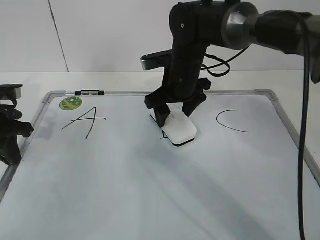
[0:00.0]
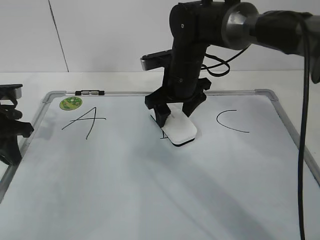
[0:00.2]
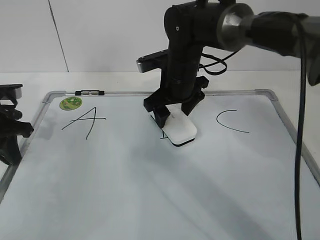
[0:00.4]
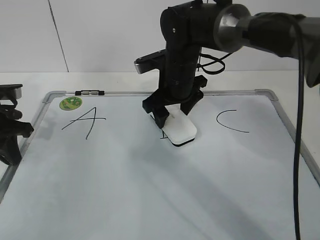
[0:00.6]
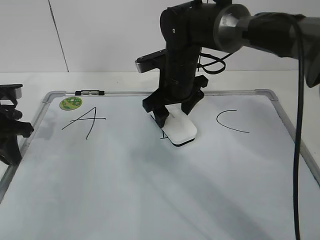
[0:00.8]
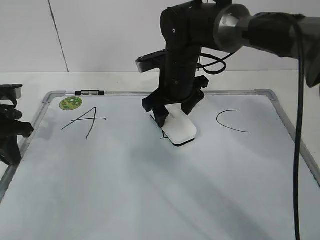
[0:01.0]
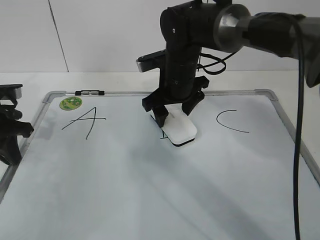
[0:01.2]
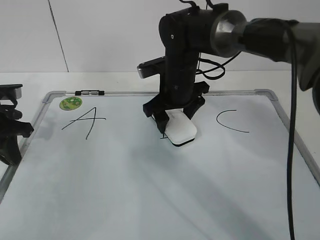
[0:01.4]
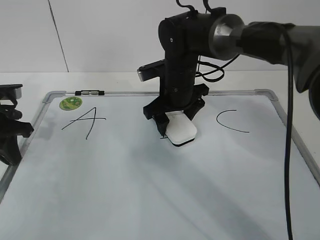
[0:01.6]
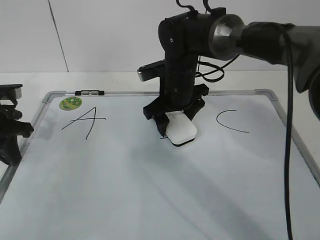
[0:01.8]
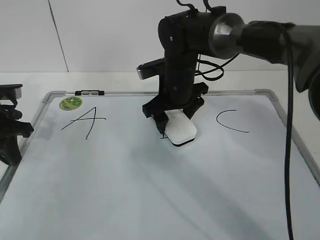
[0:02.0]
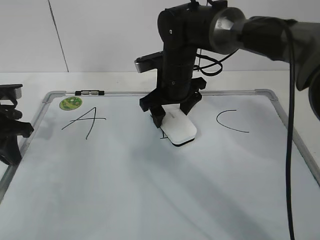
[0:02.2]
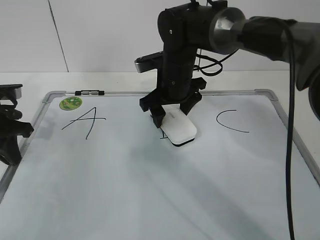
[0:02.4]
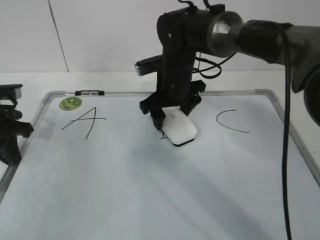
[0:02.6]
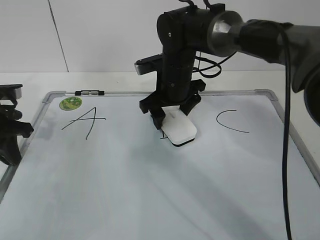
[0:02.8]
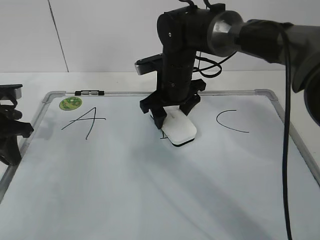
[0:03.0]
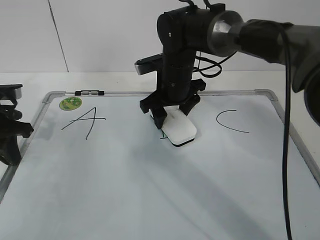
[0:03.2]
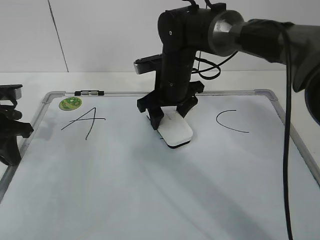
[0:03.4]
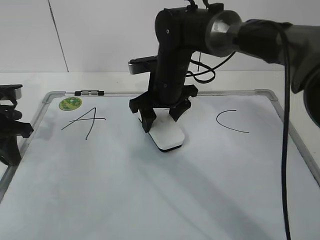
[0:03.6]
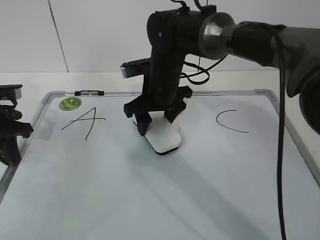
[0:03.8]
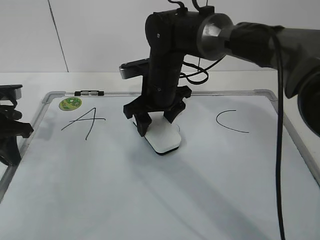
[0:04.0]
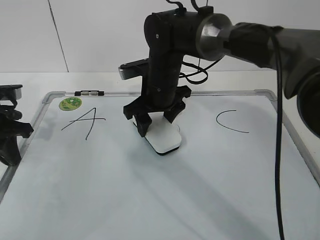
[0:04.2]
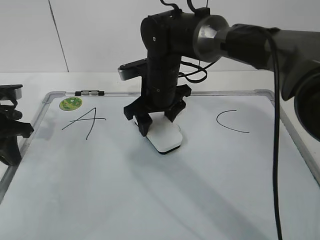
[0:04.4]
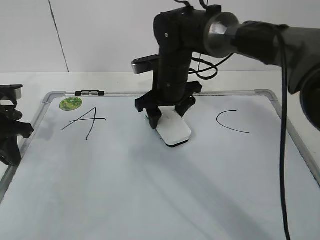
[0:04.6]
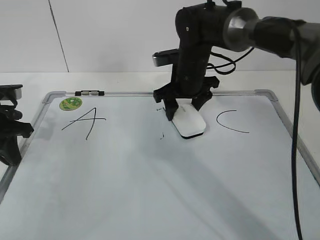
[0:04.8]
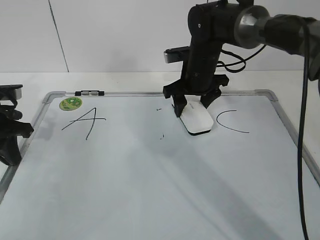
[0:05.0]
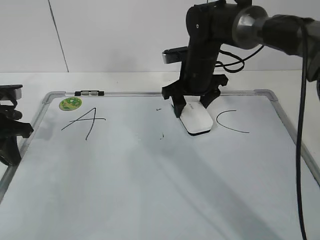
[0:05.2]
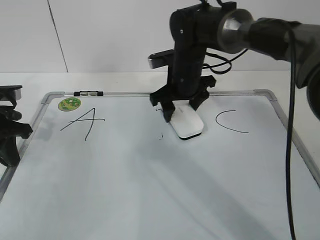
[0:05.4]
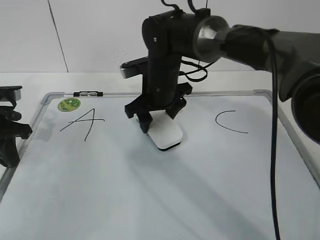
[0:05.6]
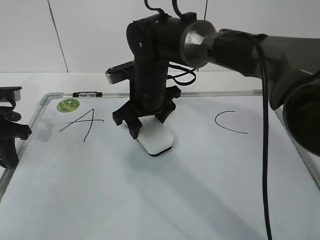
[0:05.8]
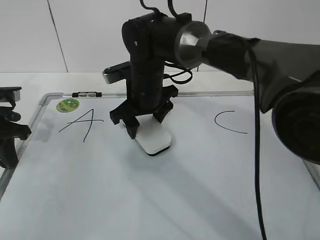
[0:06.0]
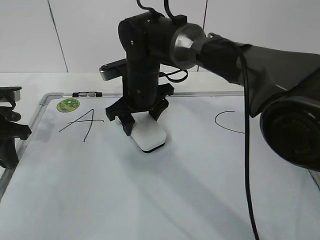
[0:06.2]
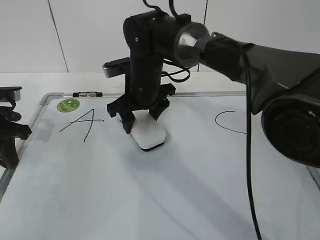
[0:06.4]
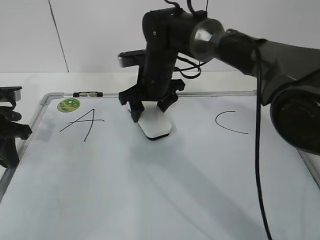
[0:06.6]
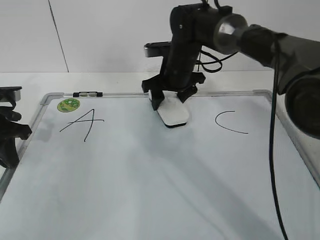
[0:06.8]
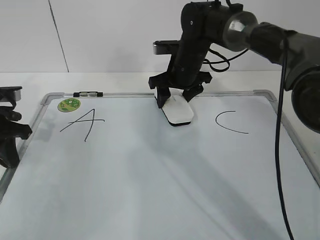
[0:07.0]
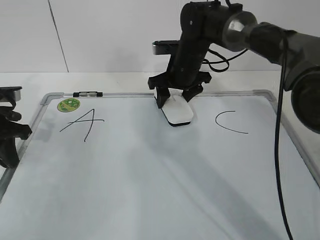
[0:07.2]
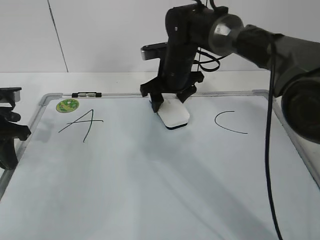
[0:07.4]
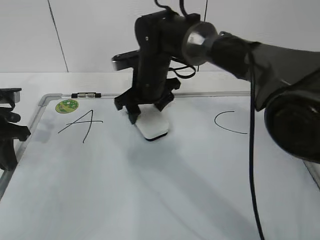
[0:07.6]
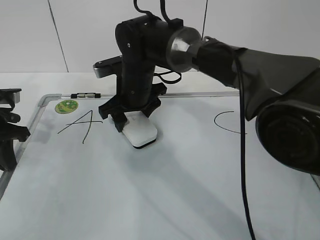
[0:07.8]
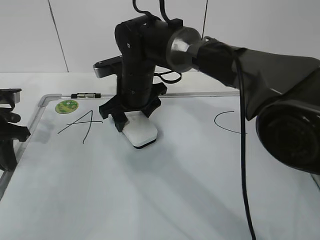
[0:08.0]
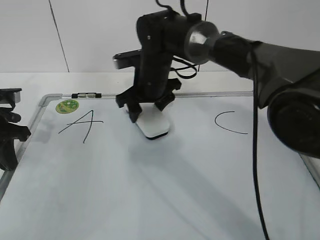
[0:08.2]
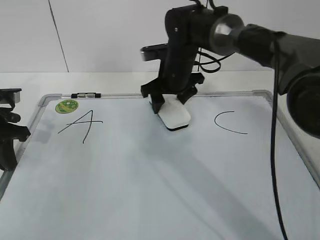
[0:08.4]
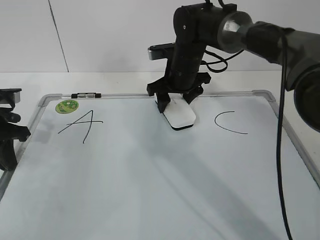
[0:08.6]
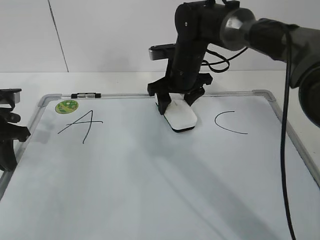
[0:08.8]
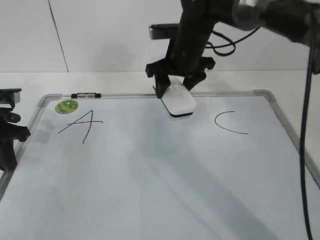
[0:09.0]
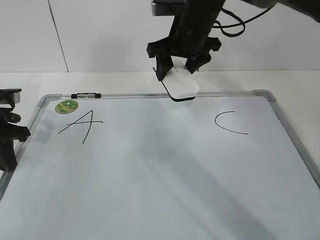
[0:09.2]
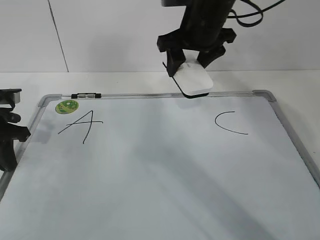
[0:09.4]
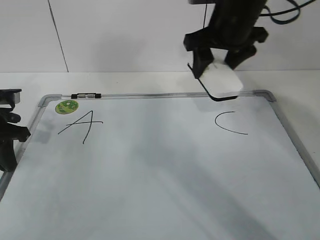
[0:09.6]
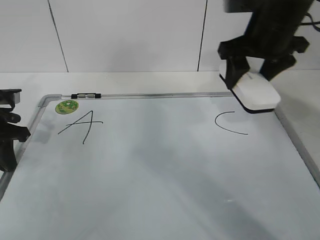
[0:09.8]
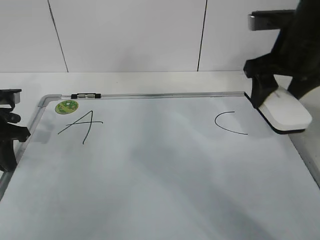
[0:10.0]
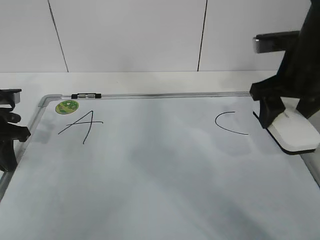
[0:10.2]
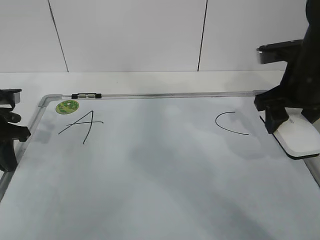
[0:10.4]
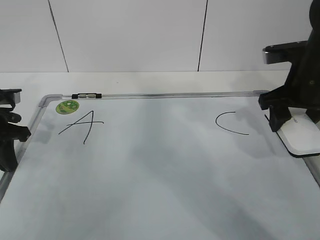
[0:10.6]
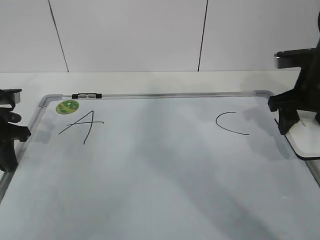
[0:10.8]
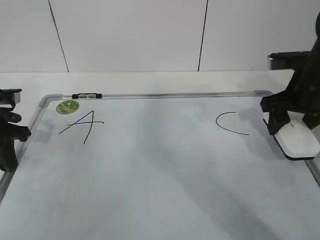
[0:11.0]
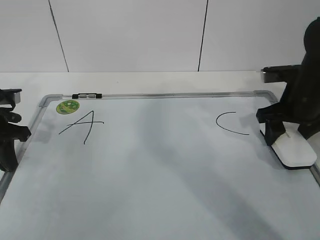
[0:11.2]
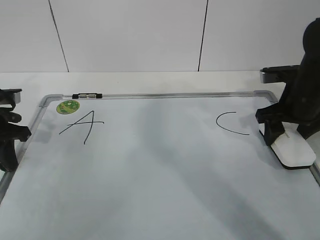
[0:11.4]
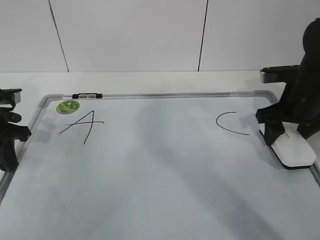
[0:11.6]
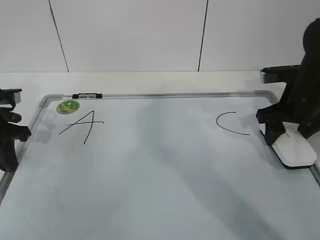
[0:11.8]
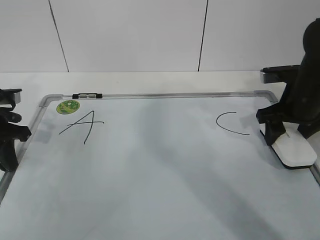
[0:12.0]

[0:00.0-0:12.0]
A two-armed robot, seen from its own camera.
Task of the whole recording: pick up the eraser on the blackboard and erase the letter "B".
Step, 0:00.0 to 0:08.8: Erase the letter B use the eraser with the right gripper.
0:00.0 to 0:01.6: The grippers stay close to where they were, moving slightly.
0:01.6 to 0:03.0: The right gripper closes up.
0:03.0 to 0:04.4: The grippers stay close to where they were, moving slightly.
0:04.4 to 0:06.0: The right gripper travels to the right and back again, some 10 cm each way.
0:06.0 to 0:07.6: The right gripper reaches roughly 10 cm to the right, then returns.
0:07.6 to 0:09.0: The right gripper moves to the right and upward, about 10 cm.
0:09.0 to 0:10.4: The right gripper heads to the right and backward, covering about 20 cm.
0:10.4 to 0:12.0: The right gripper goes some 5 cm downward.

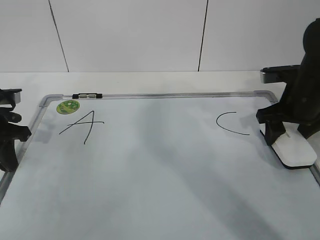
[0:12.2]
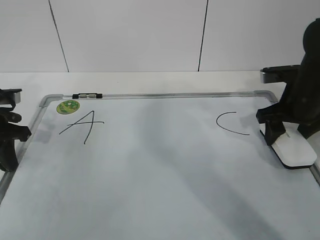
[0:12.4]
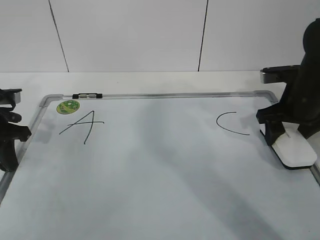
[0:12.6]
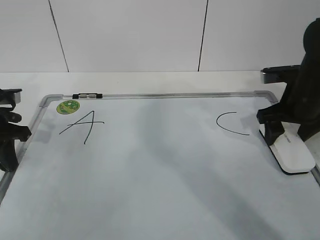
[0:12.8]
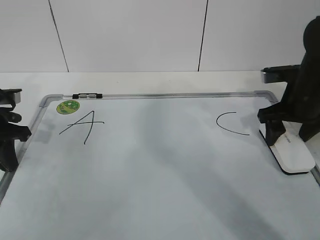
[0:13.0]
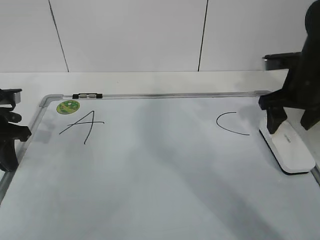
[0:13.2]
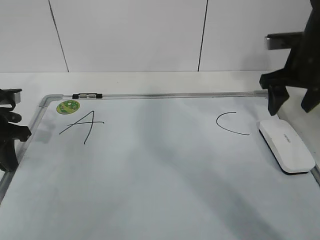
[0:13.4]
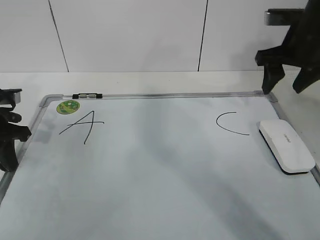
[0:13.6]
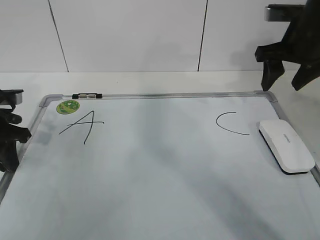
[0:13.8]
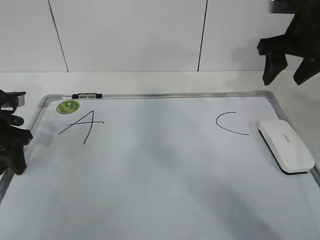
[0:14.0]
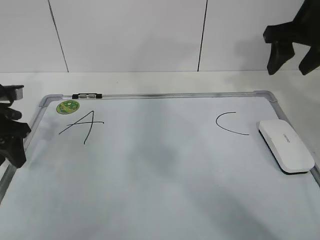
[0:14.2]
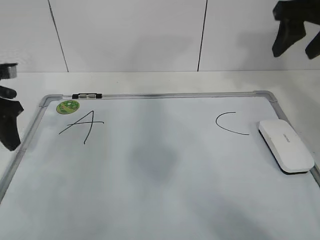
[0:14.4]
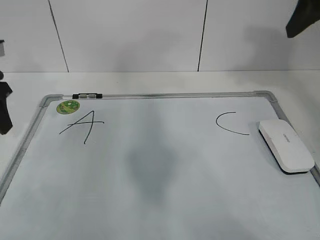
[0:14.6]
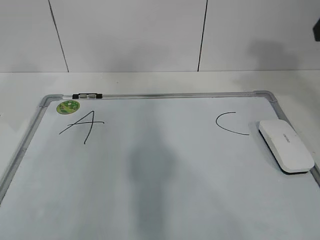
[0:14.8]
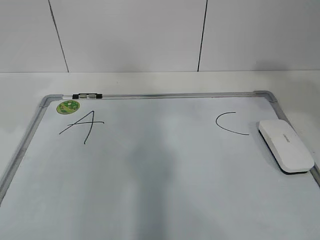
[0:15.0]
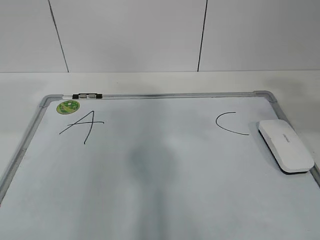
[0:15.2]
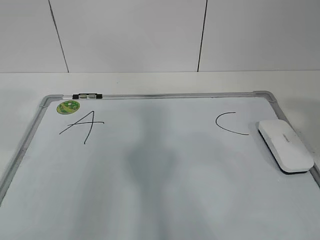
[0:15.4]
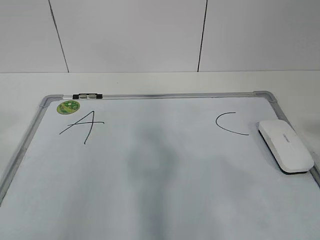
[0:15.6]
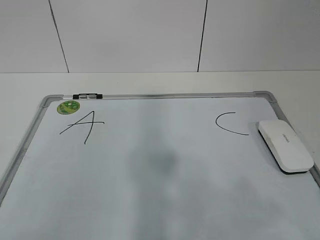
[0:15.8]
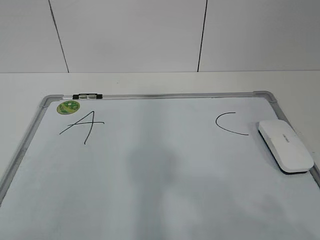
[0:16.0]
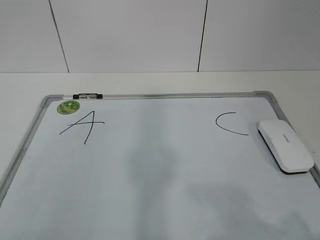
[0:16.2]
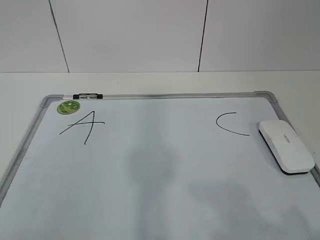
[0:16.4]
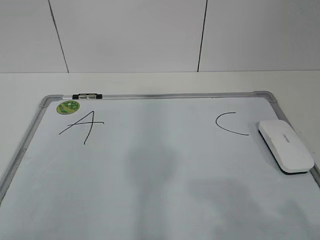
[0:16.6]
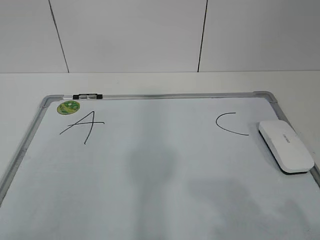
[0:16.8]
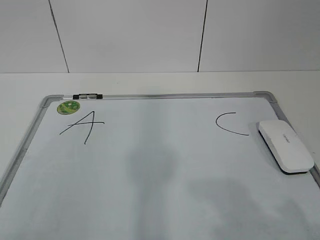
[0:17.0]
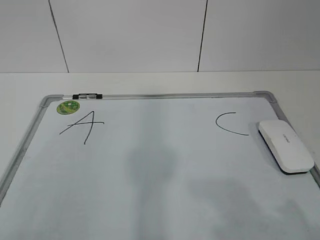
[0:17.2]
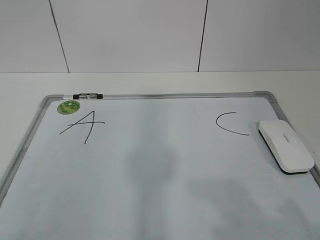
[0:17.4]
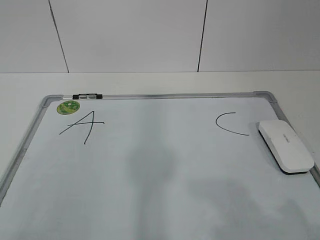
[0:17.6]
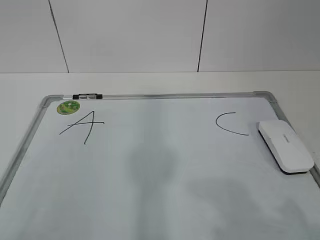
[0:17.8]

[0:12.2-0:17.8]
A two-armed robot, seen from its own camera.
Task of the whole recording: pick up the eraser on the blackboard and erase the letter "B".
0:12.2 to 0:13.6: The right gripper shifts roughly 10 cm upward, and opens, then closes once more.
0:13.6 to 0:15.0: The left gripper shifts approximately 20 cm upward and backward, and opens its fingers, while the right gripper travels backward and upward by roughly 25 cm.
0:15.0 to 0:16.4: The right gripper heads backward and downward, covering some 25 cm. Meanwhile the left gripper goes roughly 25 cm backward.
0:16.4 to 0:17.8: Neither gripper changes place.

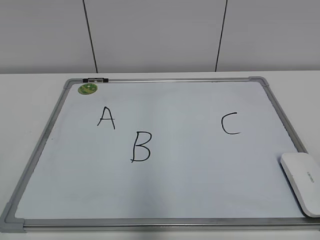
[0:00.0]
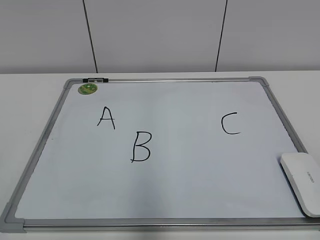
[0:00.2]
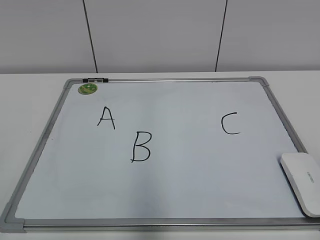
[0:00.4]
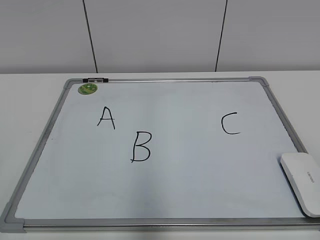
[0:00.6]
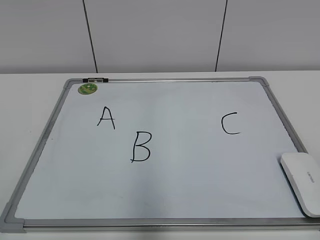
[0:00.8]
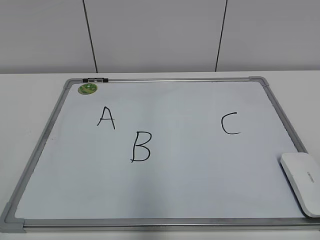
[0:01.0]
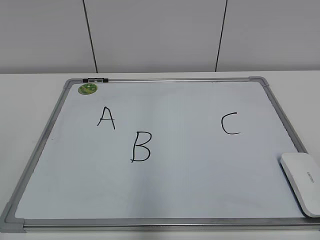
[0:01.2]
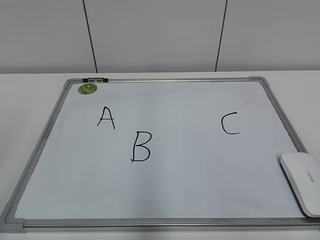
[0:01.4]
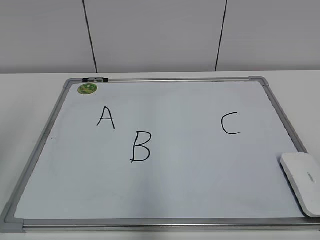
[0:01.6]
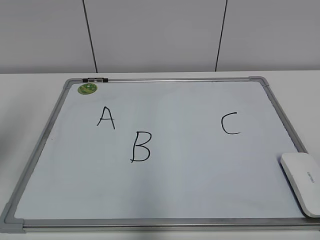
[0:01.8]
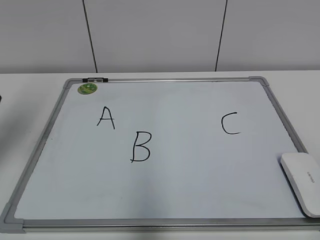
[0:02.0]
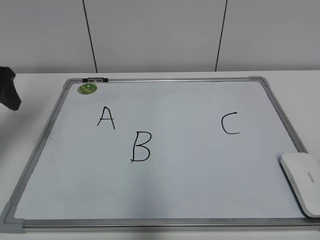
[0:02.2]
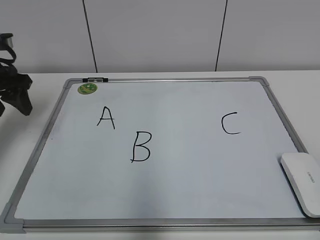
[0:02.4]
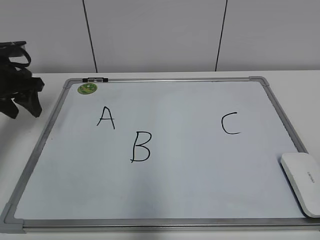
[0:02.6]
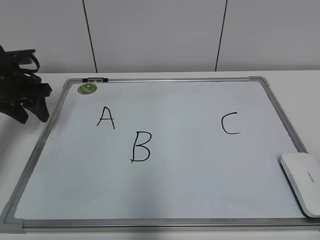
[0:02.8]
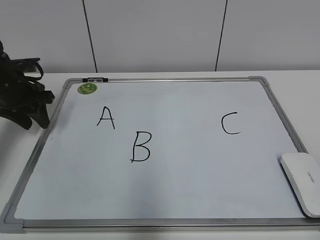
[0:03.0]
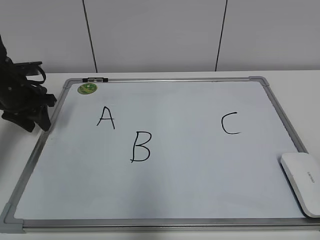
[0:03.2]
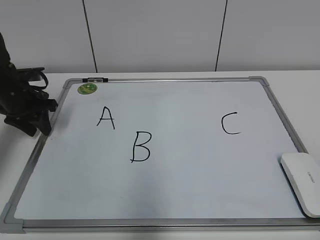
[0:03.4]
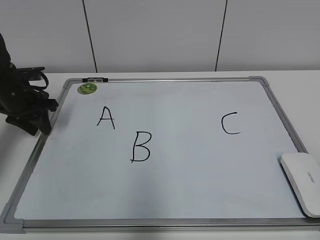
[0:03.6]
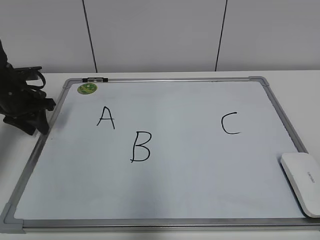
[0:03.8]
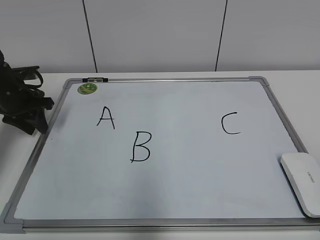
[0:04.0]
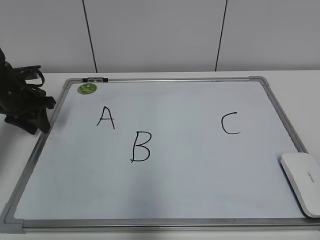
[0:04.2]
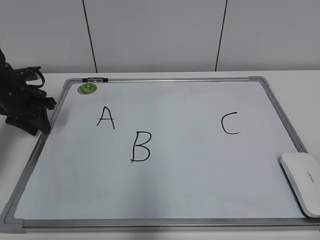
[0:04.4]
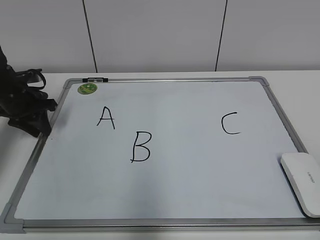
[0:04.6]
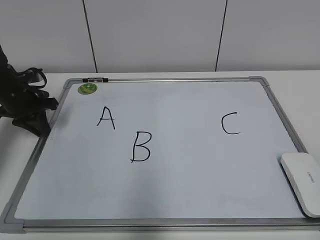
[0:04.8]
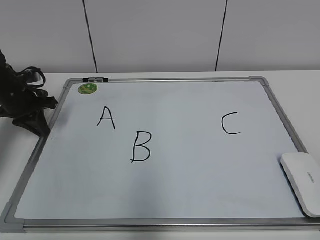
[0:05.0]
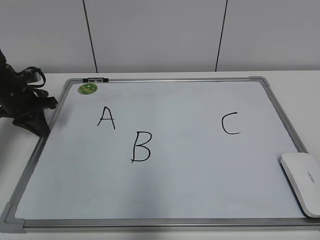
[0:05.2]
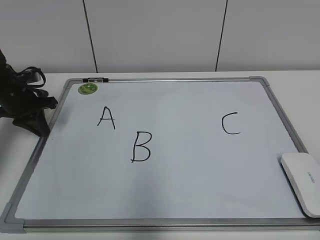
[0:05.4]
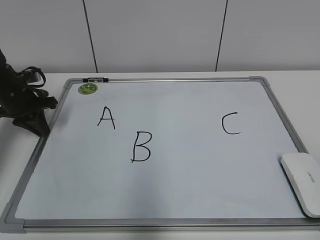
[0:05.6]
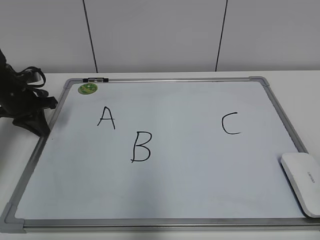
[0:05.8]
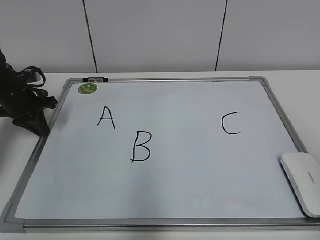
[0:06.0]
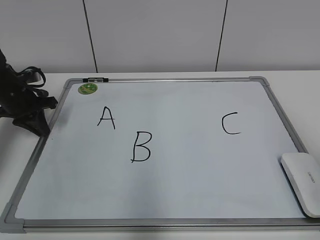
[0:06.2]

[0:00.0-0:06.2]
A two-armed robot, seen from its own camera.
Task of the whole recording: pick up the eraser on the blackboard and erase the letter "B".
Step, 0:00.0 to 0:04.8: Hold the drawing board steady with your left hand.
0:01.6 to 0:03.2: The left gripper shifts roughly 35 cm forward and downward, and closes.
0:03.2 to 0:04.6: The grippers move only a little.
0:04.6 to 0:06.2: The left gripper closes.
